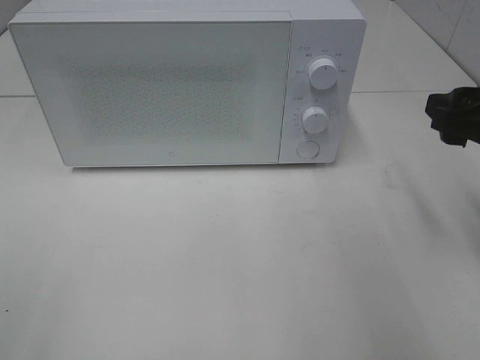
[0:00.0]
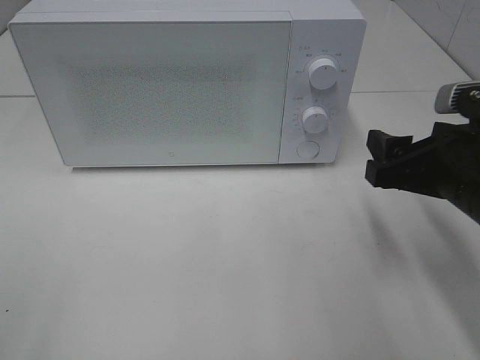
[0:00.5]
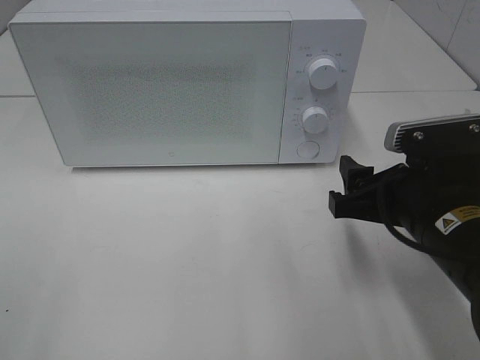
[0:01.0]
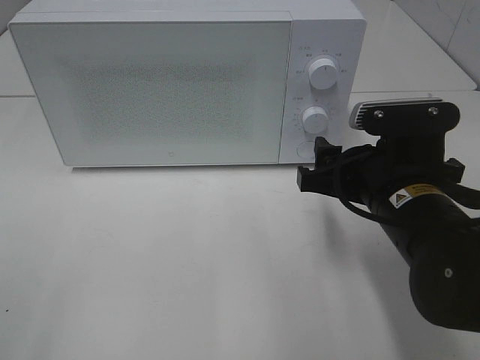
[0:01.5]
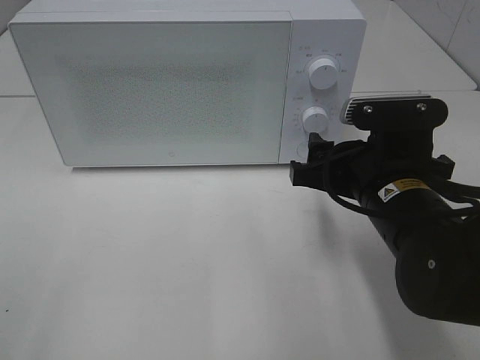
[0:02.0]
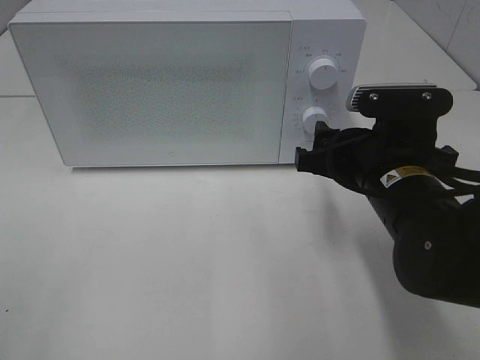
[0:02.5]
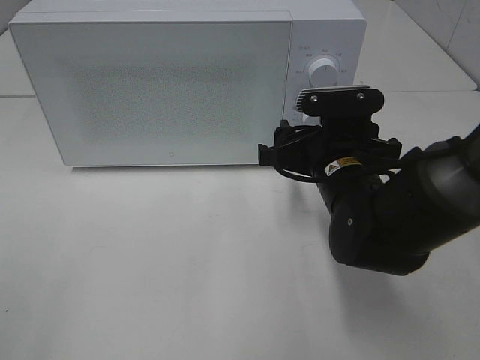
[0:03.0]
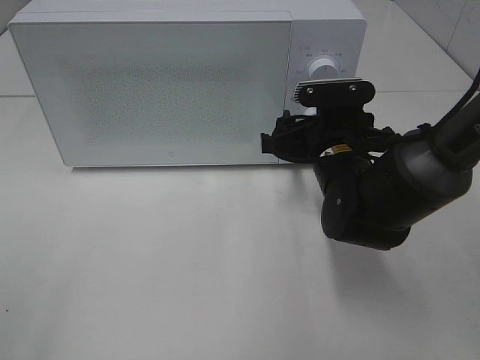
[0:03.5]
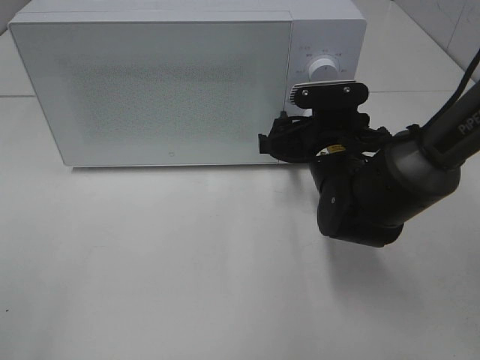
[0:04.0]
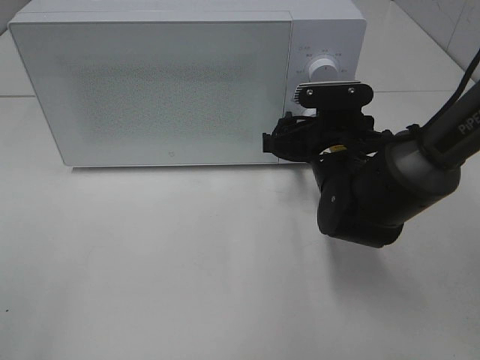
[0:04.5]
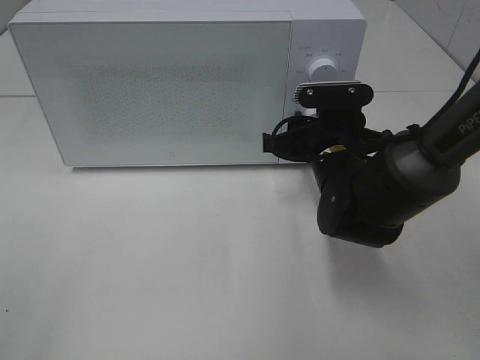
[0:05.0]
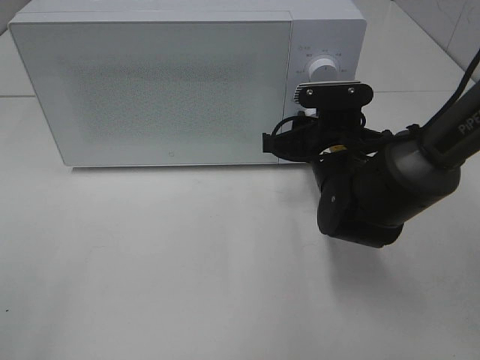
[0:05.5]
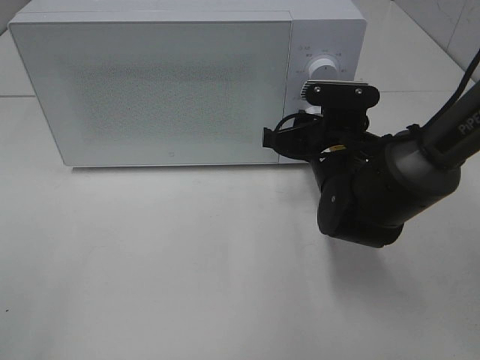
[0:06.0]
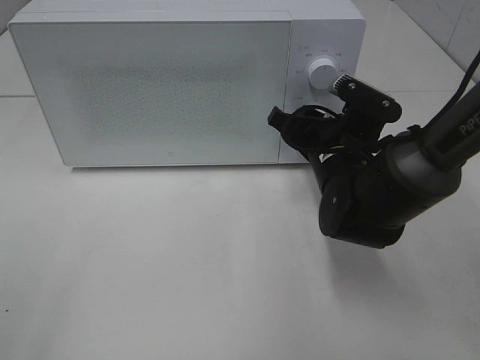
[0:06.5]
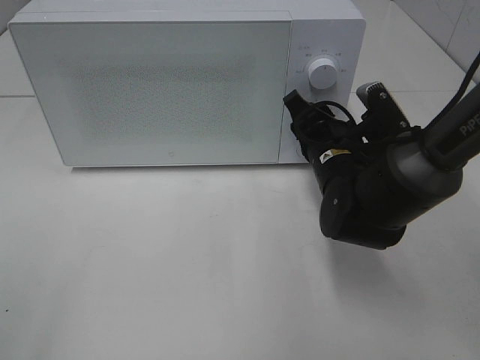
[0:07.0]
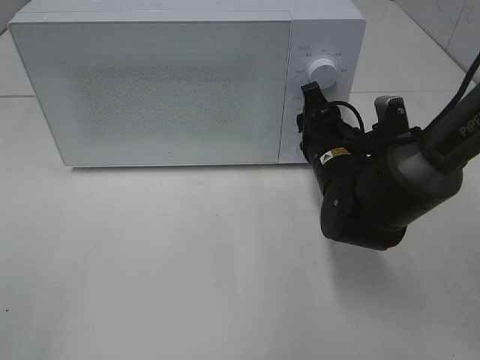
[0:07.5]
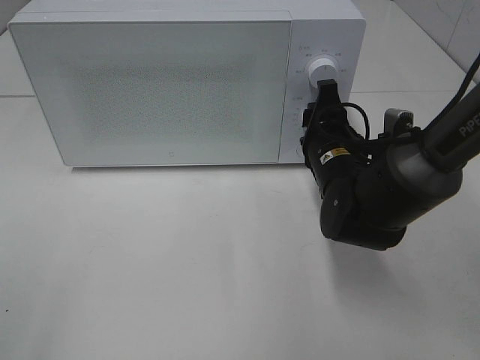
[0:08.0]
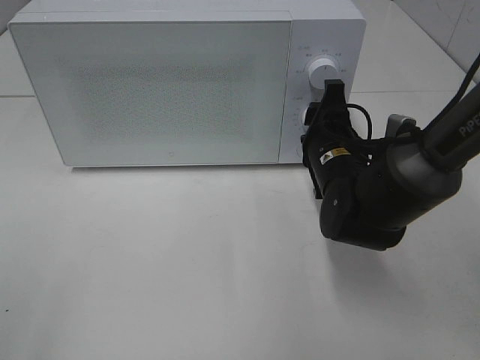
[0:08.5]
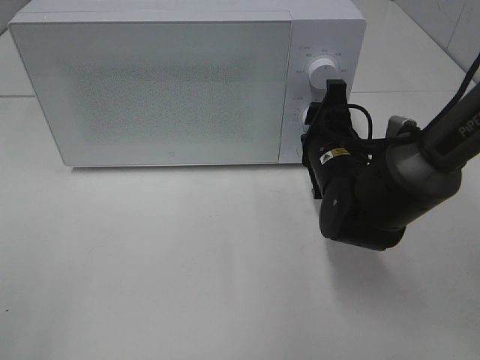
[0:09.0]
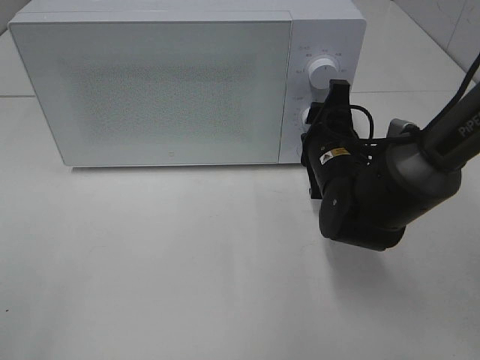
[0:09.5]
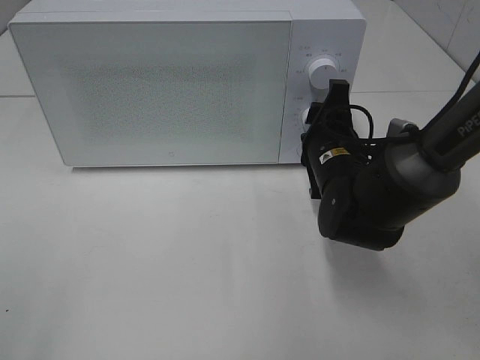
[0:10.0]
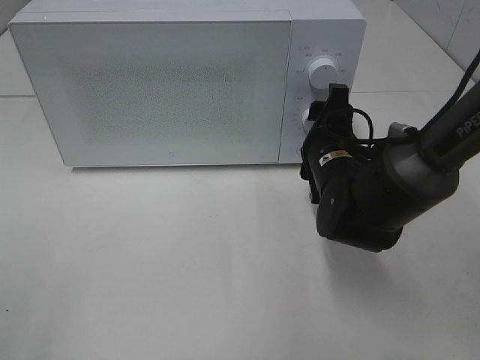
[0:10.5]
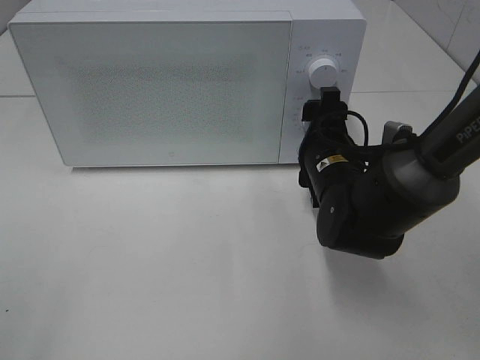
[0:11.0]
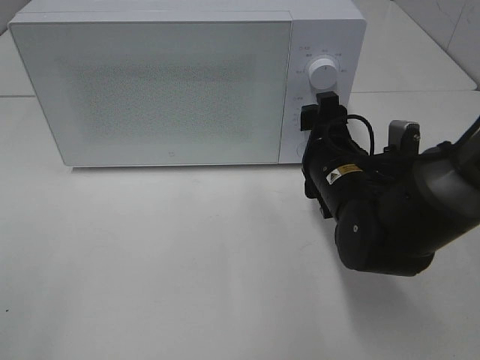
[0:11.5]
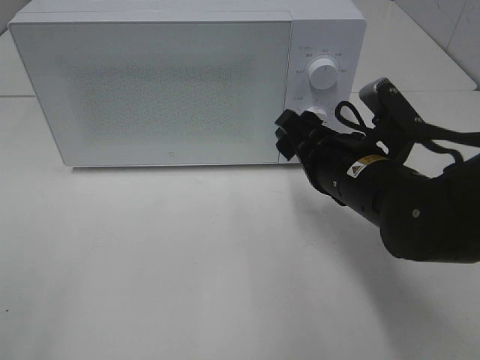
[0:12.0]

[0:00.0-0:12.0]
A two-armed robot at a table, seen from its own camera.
Task of the whole recording: Heat the burger.
Step, 0:00.0 to 0:11.0: Right hand: twist timer button.
0:00.0 to 0:02.0: The right gripper shifts about 15 cm to the left and downward.
0:02.0 to 0:04.0: The right gripper shifts some 10 cm forward.
0:04.0 to 0:06.0: The right gripper closes up.
0:08.0 to 0:10.0: The grippers make only small movements.
0:10.0 to 0:12.0: The right gripper shifts approximately 5 cm backward, and opens.

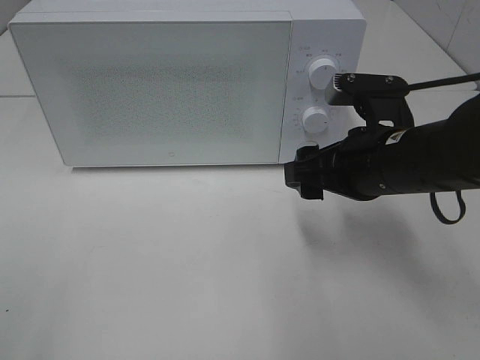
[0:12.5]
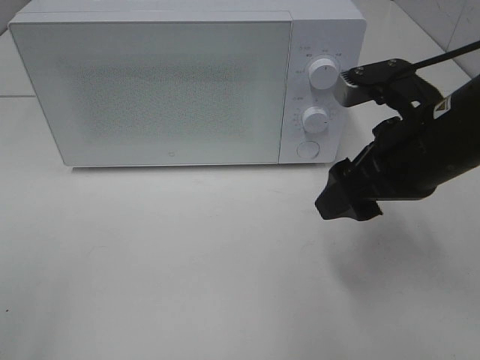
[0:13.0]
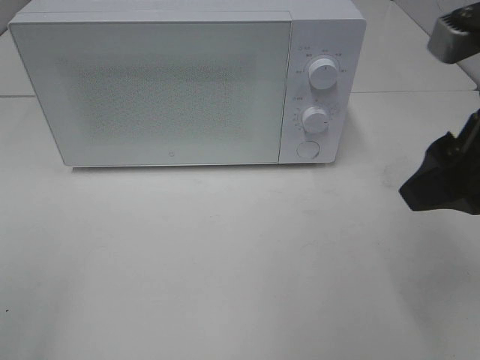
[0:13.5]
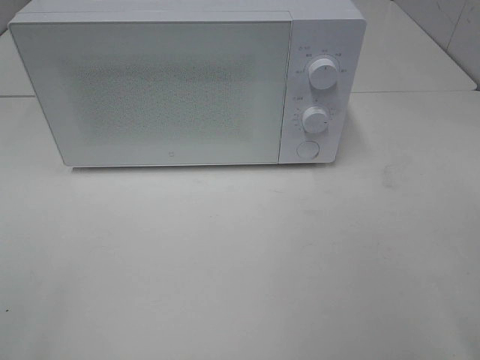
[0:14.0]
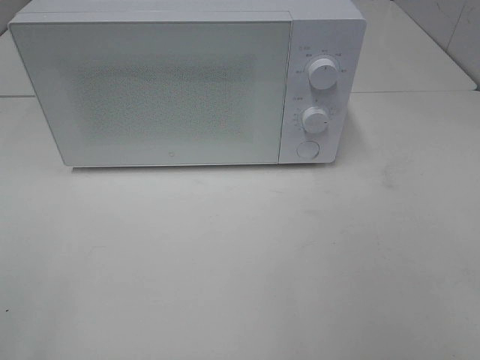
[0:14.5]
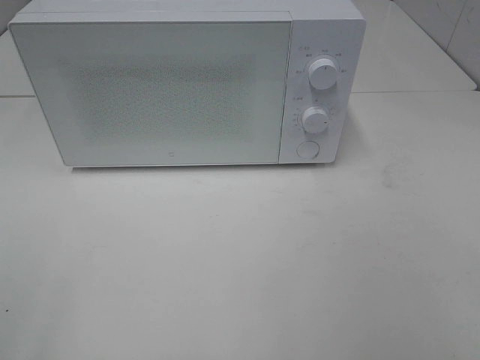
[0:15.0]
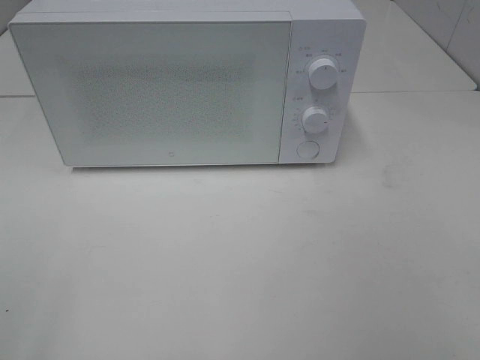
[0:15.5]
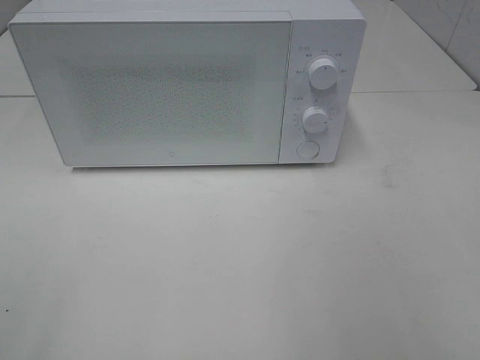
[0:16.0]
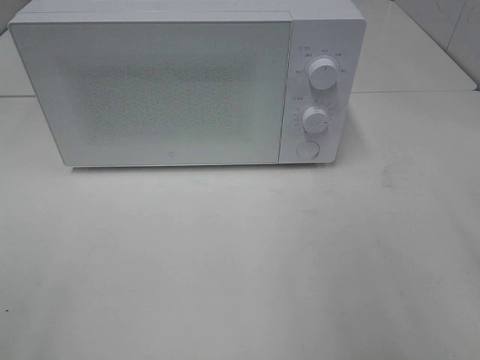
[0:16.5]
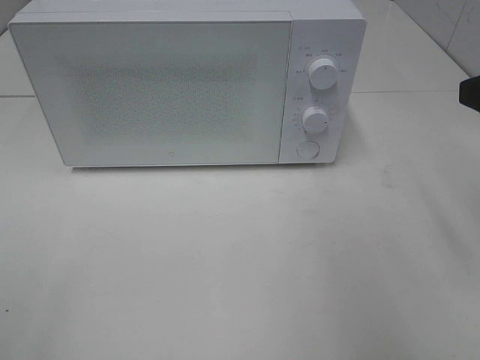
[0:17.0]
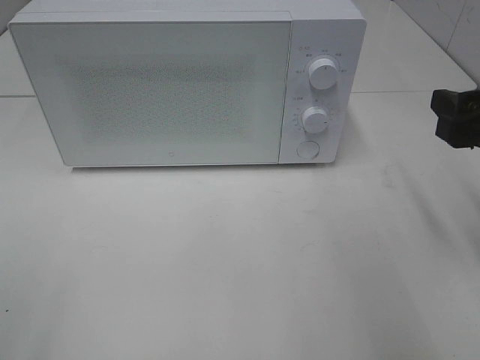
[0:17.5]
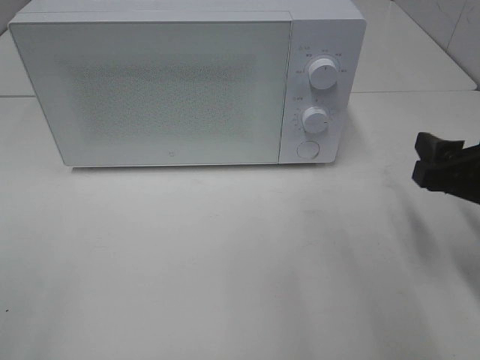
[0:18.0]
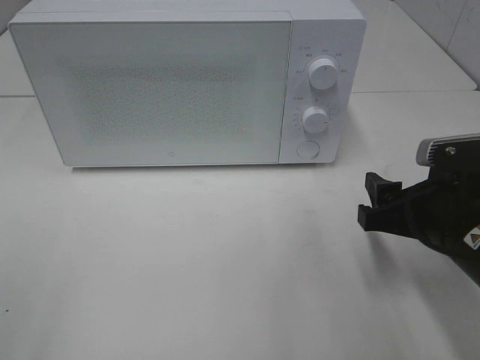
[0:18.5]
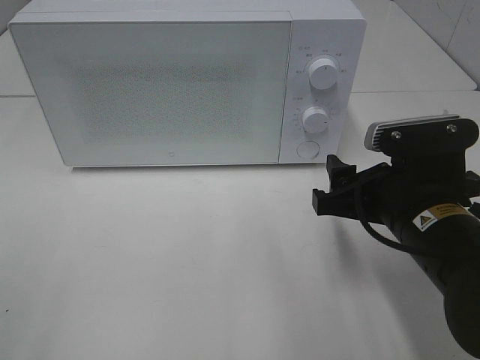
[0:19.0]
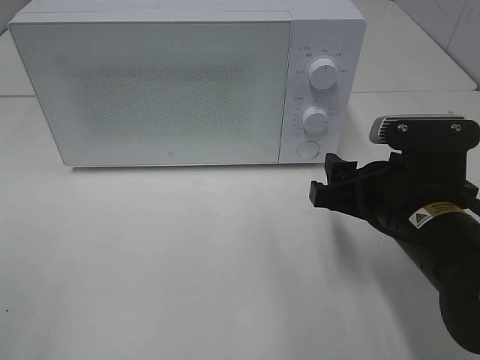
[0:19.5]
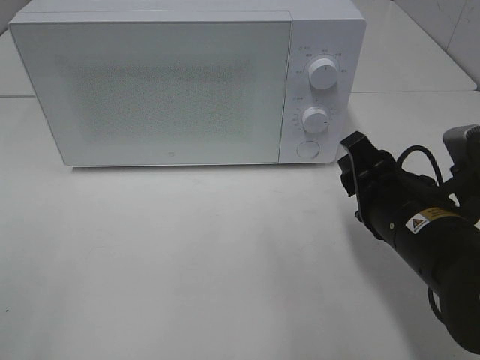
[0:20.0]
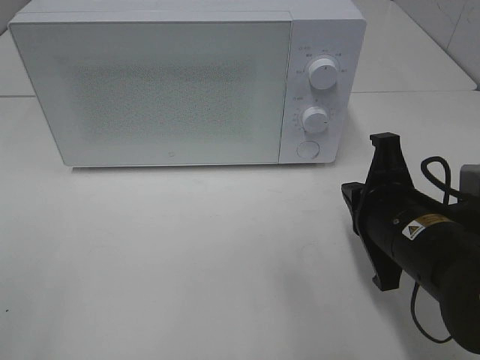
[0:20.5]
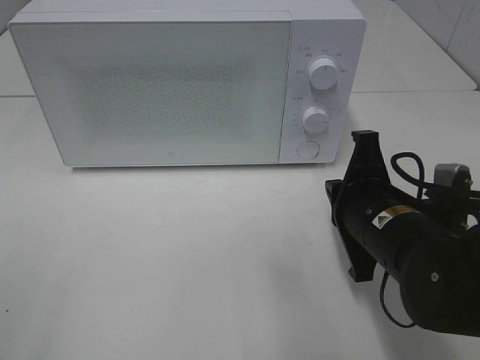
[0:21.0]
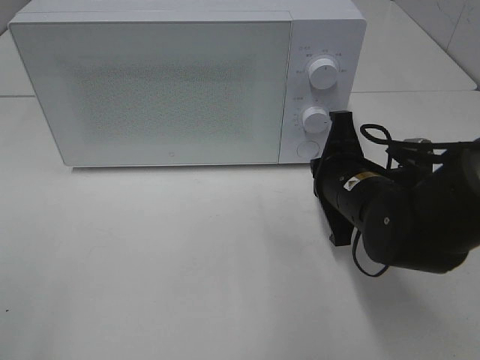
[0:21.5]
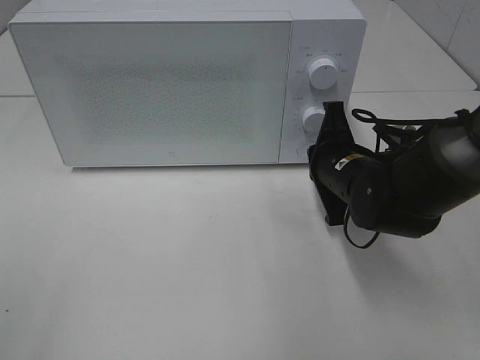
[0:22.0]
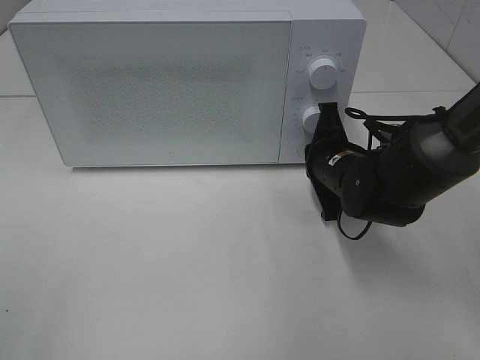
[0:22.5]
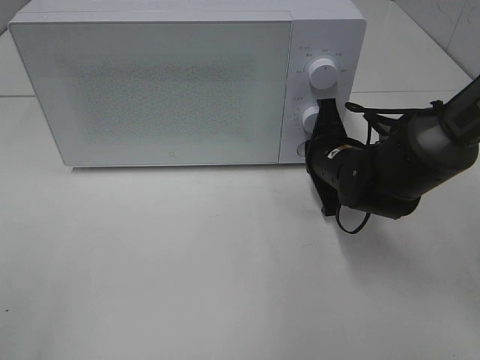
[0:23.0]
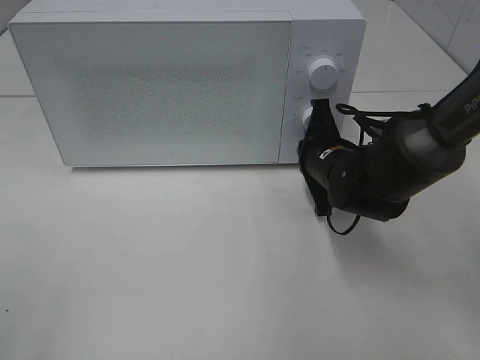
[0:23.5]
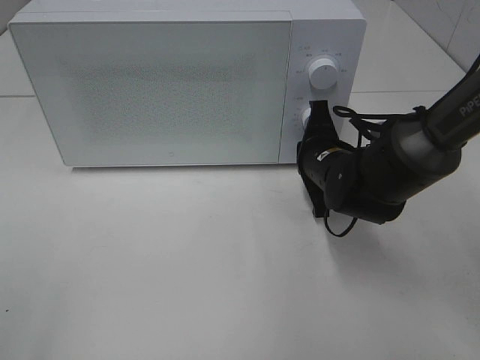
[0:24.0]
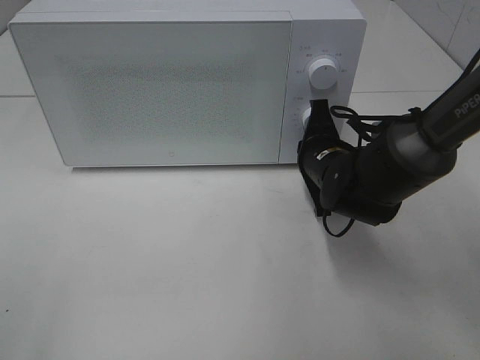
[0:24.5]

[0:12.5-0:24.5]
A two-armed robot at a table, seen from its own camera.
Task of the whole recording: Heat the burger.
0:12.5 to 0:14.5: The right gripper travels backward, to the right and upward by approximately 30 cm.
0:16.5 to 0:18.5: The right gripper moves downward, roughly 15 cm.
0:18.5 to 0:20.5: The right gripper closes up.
0:20.5 to 0:22.5: The right gripper heads forward, covering about 15 cm.
0:22.5 to 0:24.5: There are only small adjustments of the grippers.

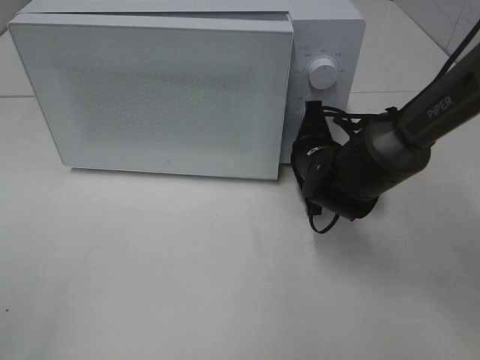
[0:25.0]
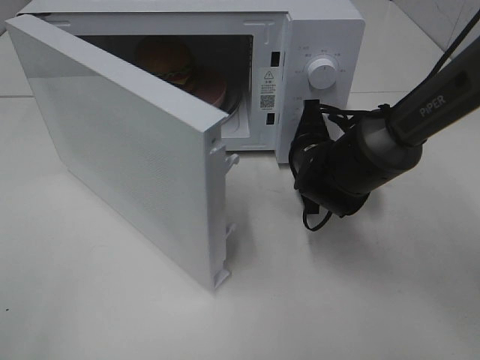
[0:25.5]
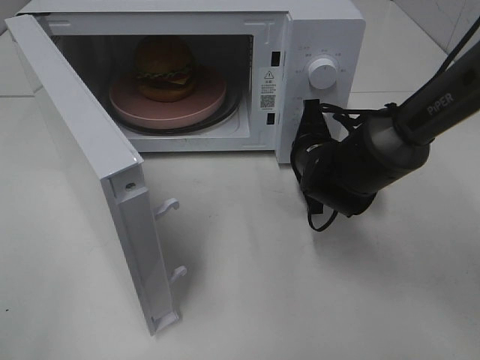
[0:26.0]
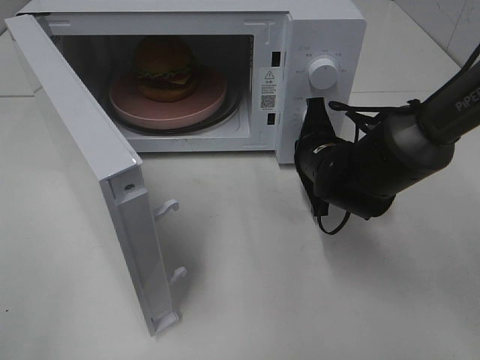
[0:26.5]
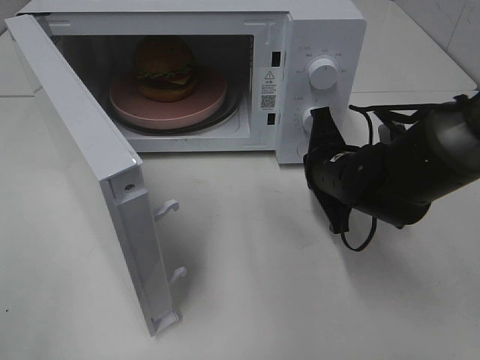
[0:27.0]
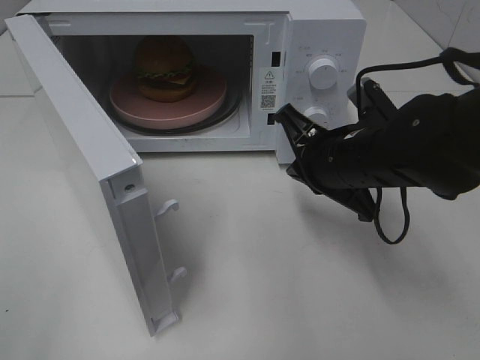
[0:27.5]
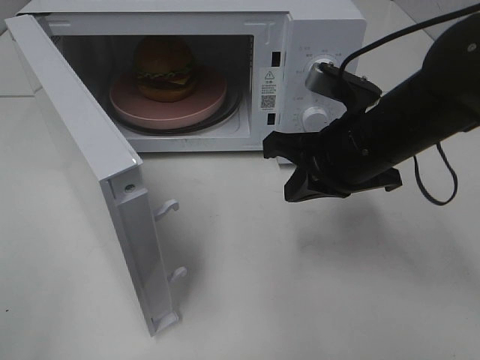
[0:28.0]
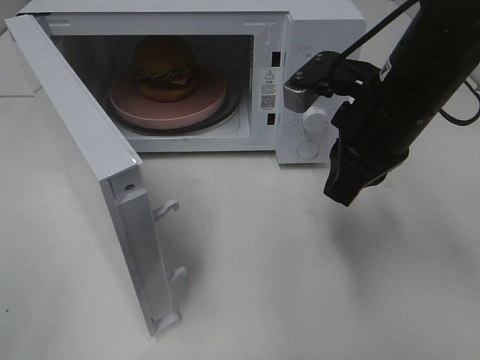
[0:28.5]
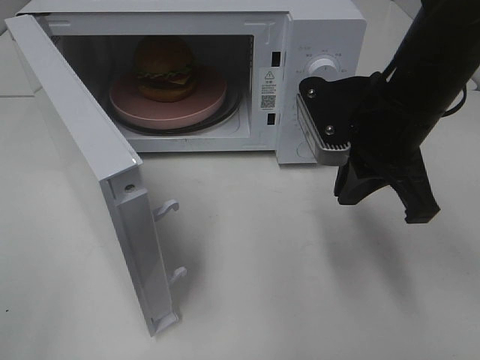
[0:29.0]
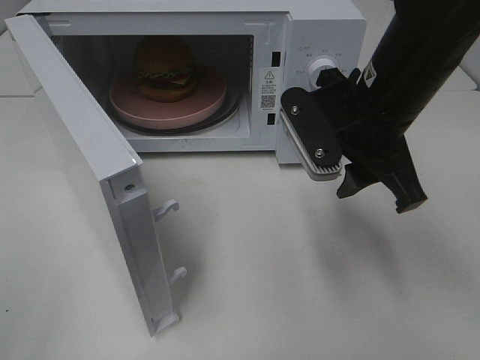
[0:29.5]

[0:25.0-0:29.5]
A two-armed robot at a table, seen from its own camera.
Task of the whole recording: Heat the burger.
0:25.0 to 0:27.0: The right gripper ends up about 5 cm from where it was.
0:27.0 to 0:29.5: The right gripper travels upward by some 15 cm, and opens its fingers.
